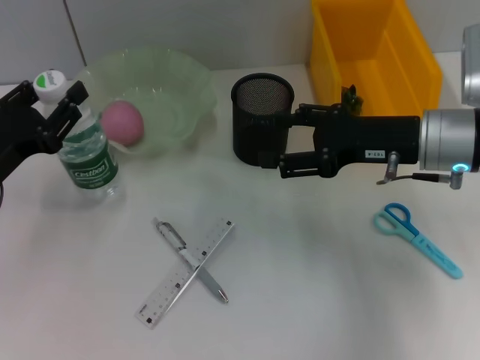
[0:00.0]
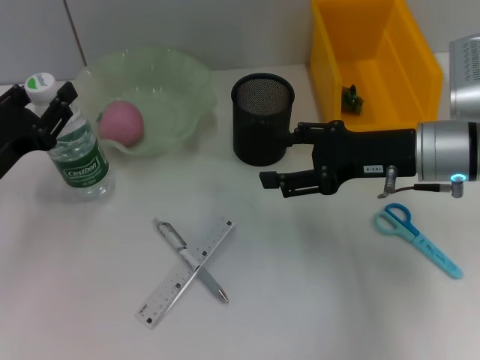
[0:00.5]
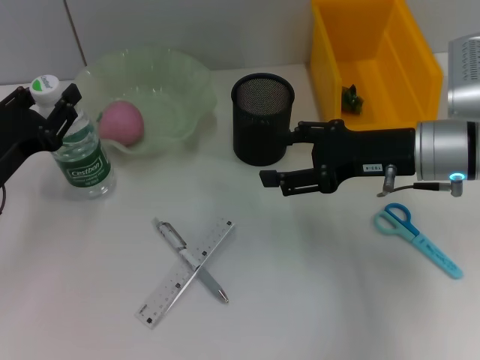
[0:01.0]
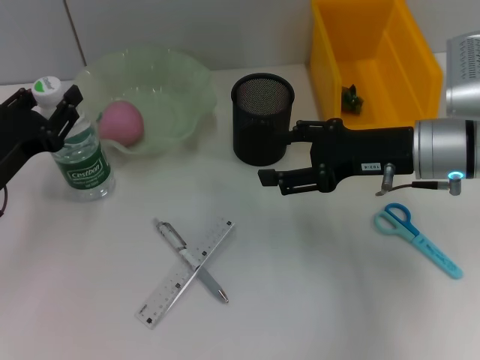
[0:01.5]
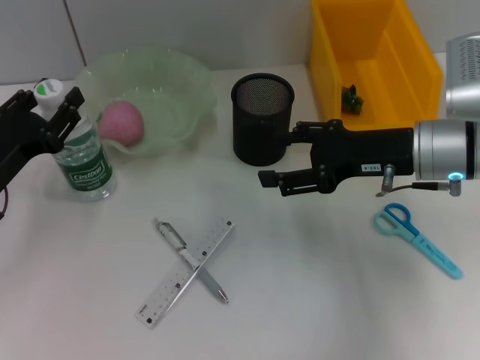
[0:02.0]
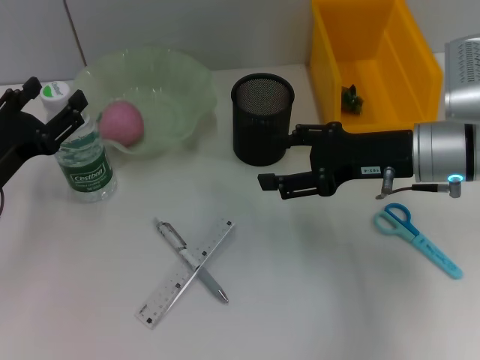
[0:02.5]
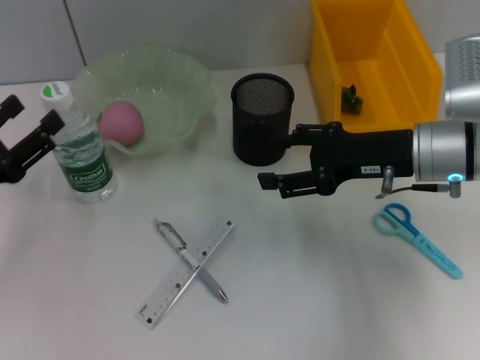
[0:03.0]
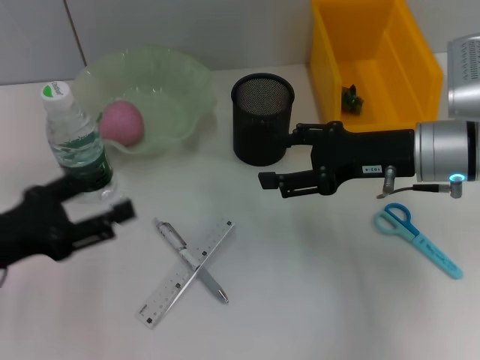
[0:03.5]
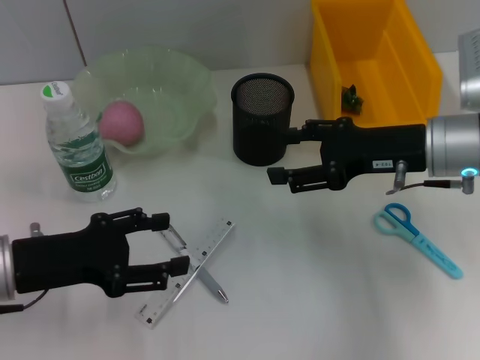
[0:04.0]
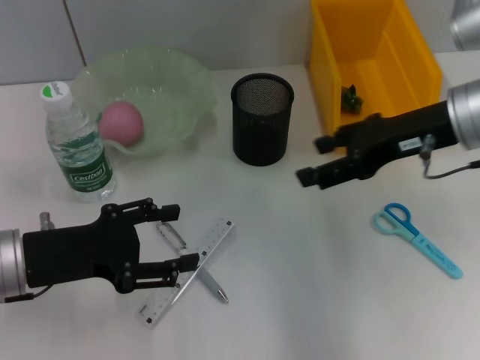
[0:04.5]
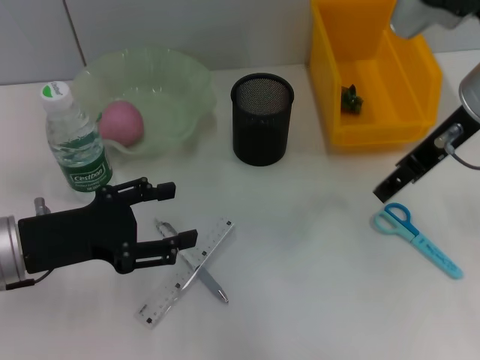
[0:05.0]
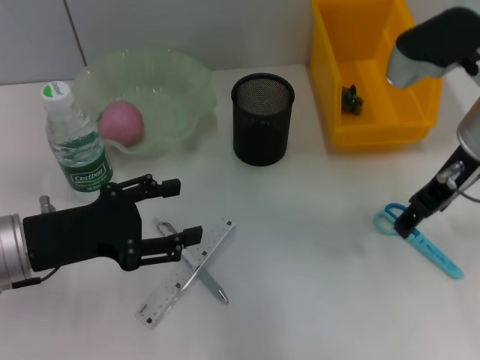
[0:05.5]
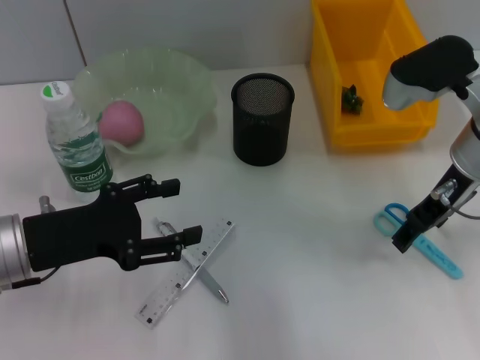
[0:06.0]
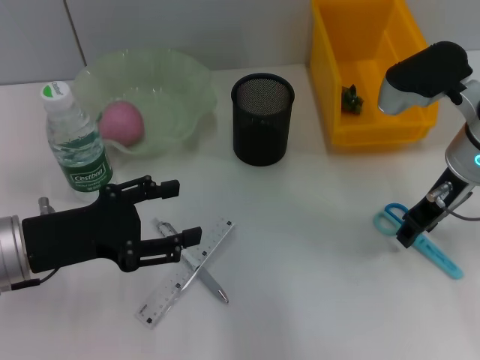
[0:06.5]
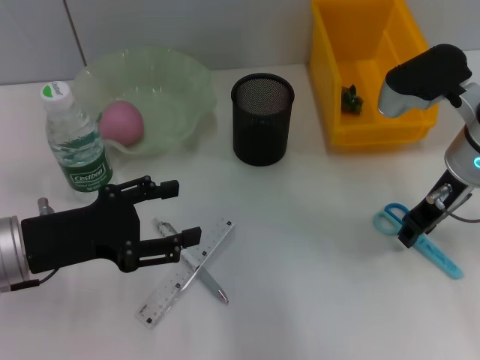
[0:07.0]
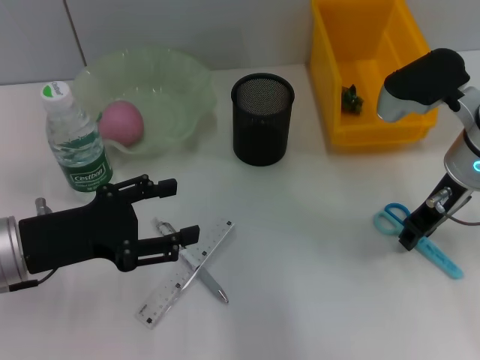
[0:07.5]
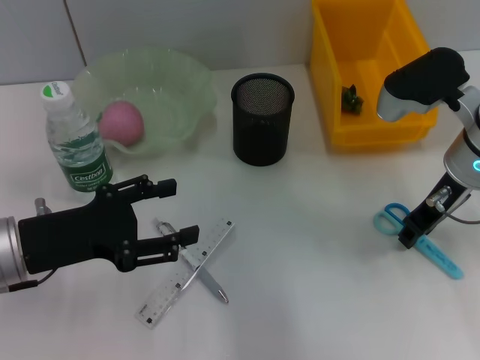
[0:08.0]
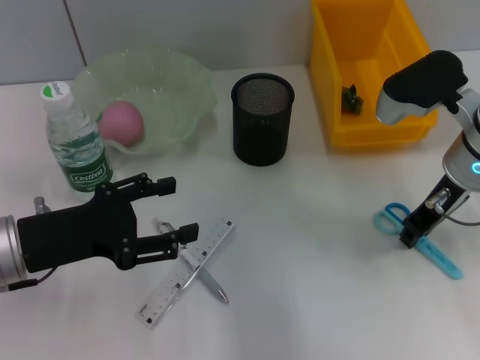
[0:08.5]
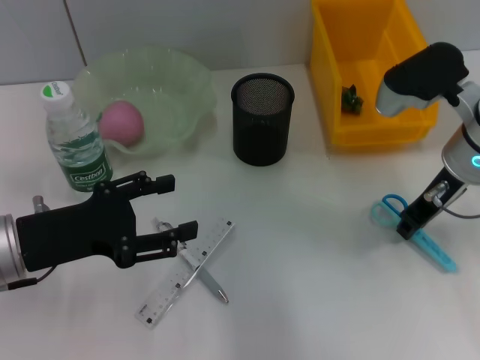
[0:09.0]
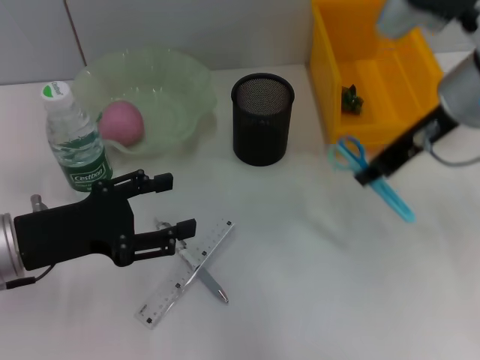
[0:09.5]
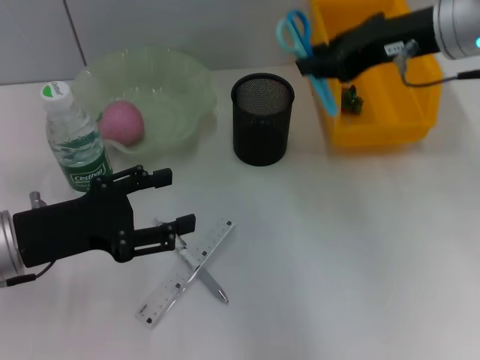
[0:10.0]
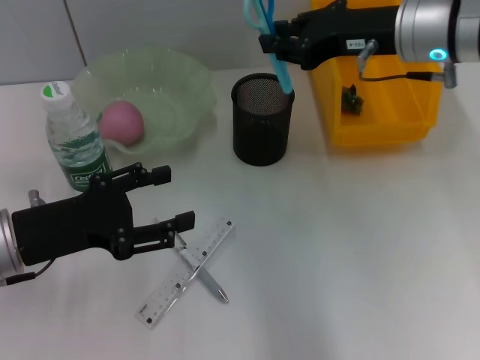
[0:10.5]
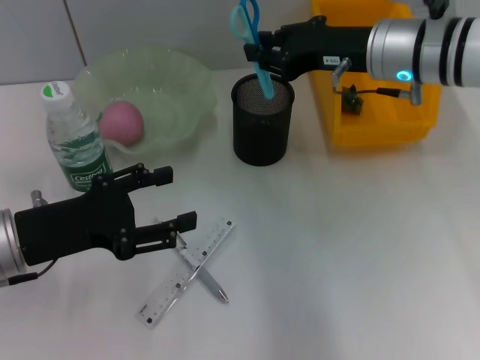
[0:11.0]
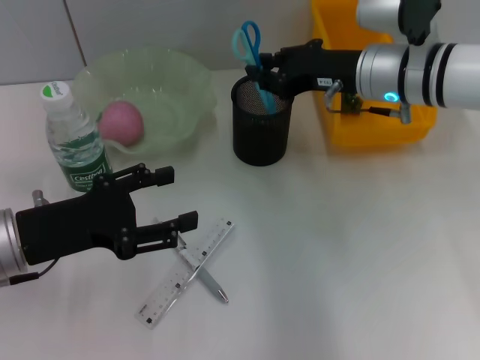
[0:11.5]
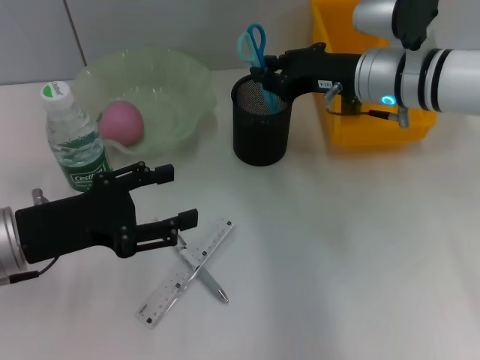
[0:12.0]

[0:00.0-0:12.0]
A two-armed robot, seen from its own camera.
Step, 0:00.0 to 0:03.0: Place the water bottle on the table with the left hand.
Step, 0:03.5 to 0:08.5: Grab the blue scissors with the right hand.
0:00.0 to 0:02.0: The grippers make only small movements.
0:02.0 to 0:04.0: The left gripper moves approximately 5 cm, and opens.
0:04.0 to 0:06.0: The right gripper moves some 10 cm upward and comes back.
0:06.0 to 0:08.0: The right gripper closes.
0:08.0 to 0:10.0: The right gripper shifts approximately 10 cm upward.
0:10.0 to 0:12.0: The right gripper goes about 10 cm downward.

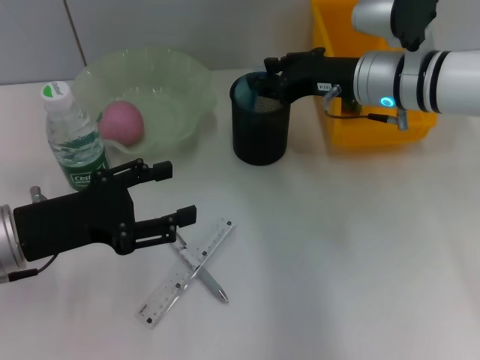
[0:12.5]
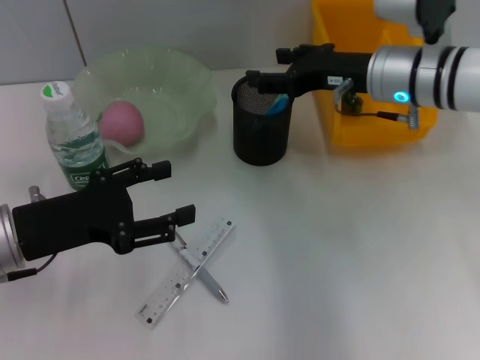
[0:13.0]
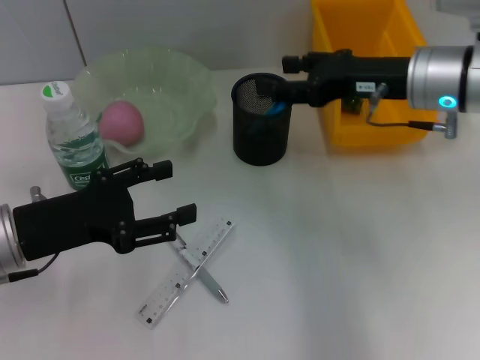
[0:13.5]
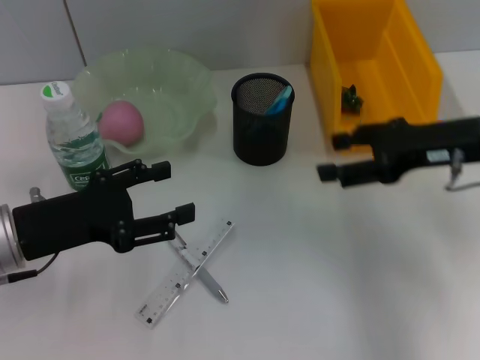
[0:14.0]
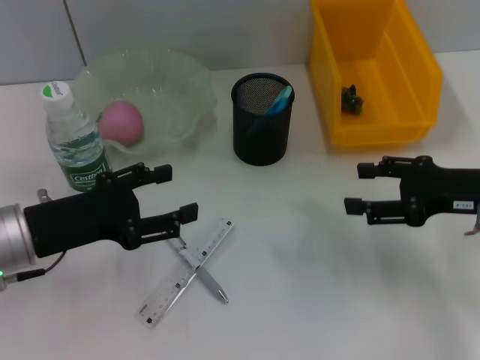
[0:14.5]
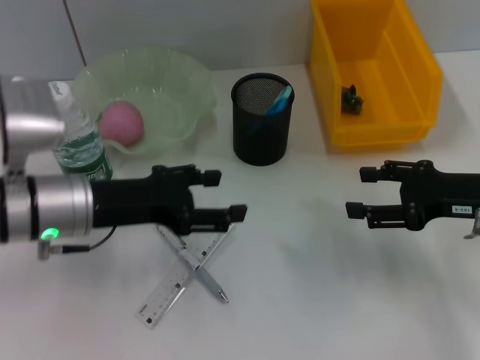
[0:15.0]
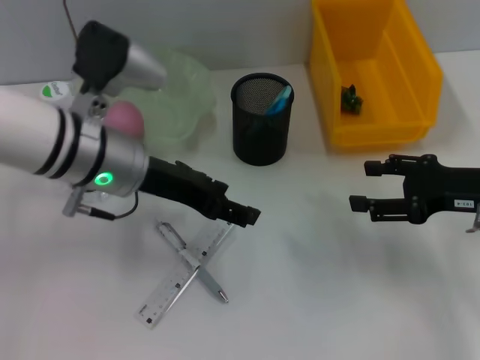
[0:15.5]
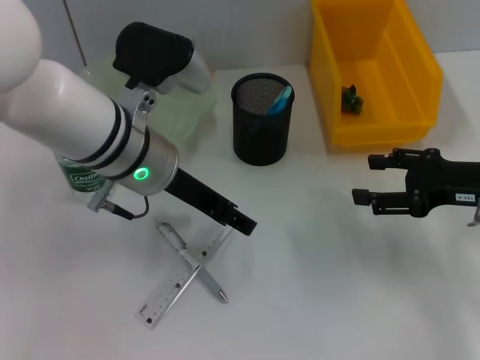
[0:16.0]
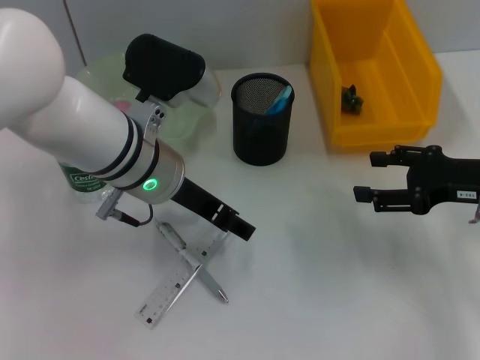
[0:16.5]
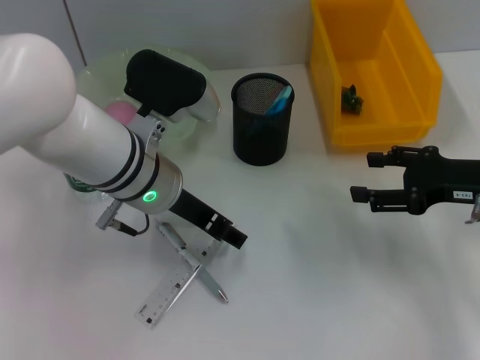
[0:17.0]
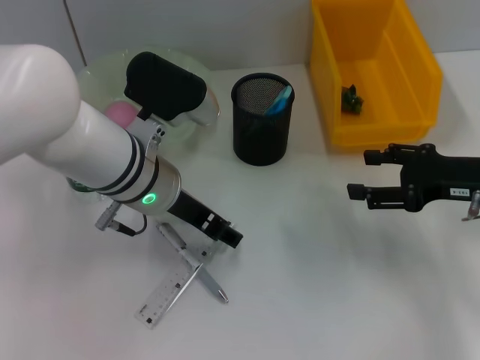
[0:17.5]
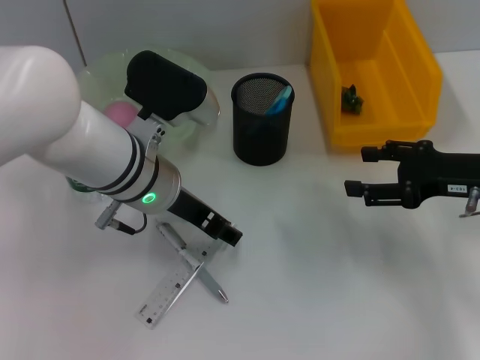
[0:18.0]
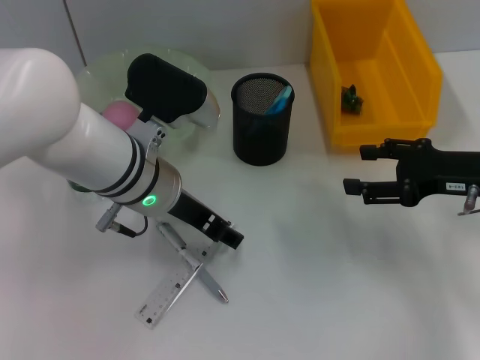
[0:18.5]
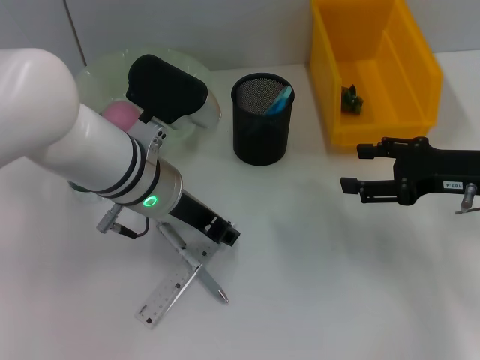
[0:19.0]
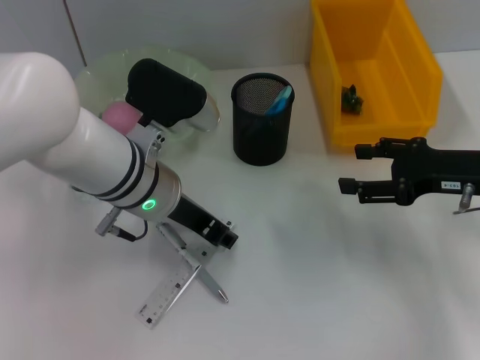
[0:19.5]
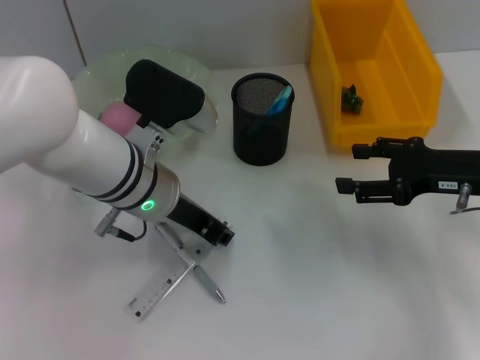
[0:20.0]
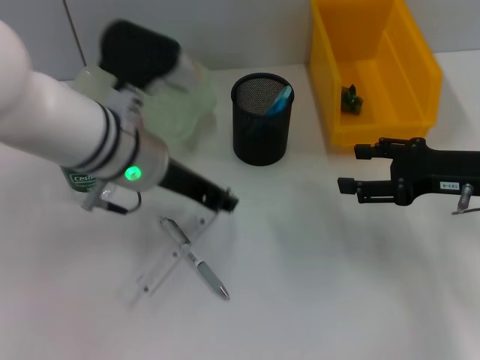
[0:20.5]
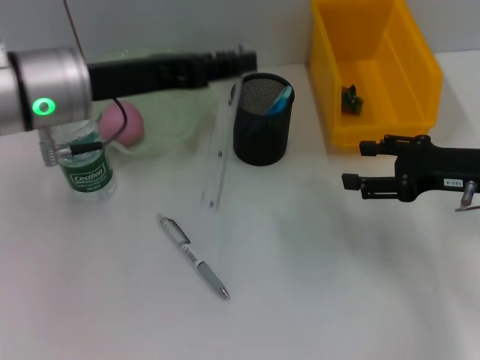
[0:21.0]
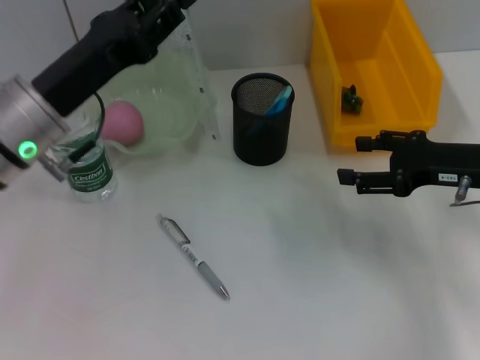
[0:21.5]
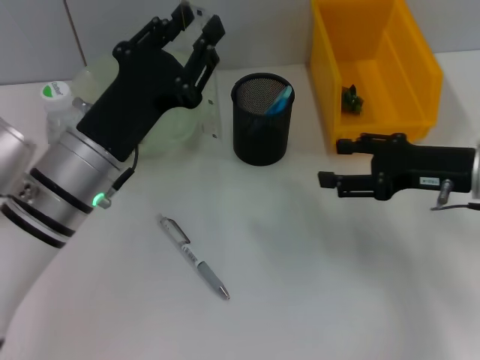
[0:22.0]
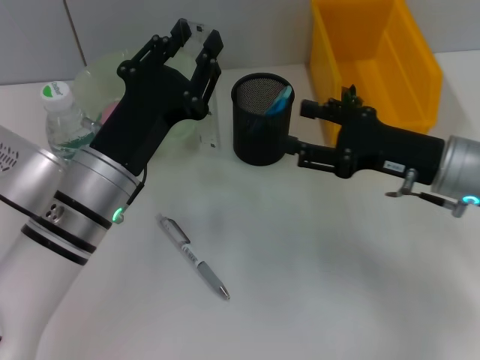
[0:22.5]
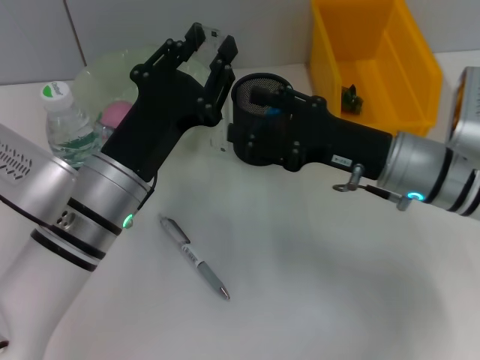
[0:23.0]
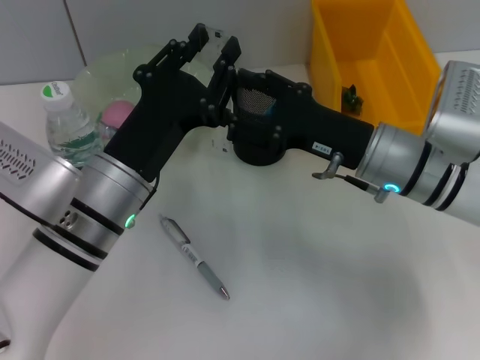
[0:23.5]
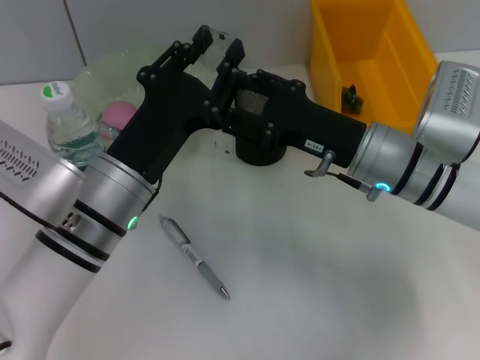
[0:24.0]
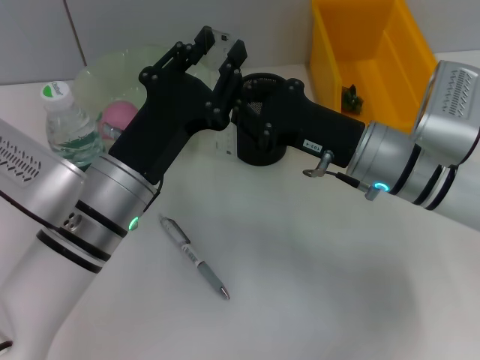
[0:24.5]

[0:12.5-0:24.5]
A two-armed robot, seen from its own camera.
Step, 0:13.5 to 0:20.0: Grab the ruler with the left hand.
0:12.5 to 0:14.5: The right gripper shifts some 15 cm to the right and backward, and opens.
0:14.5 to 0:16.5: The left gripper heads to the right and forward, covering roughly 15 cm.
0:16.5 to 0:18.5: The grippers move only a little.
0:18.5 to 0:20.5: The left gripper closes up.
0:20.5 to 0:22.5: The right gripper moves to the left, about 5 cm; the left gripper travels backward and downward by approximately 10 cm.
0:22.5 to 0:24.5: The right gripper heads to the left, covering roughly 10 cm, and closes its fingers.

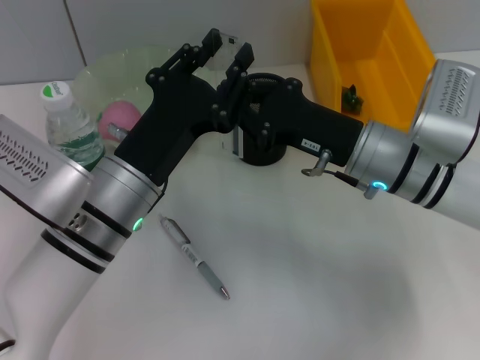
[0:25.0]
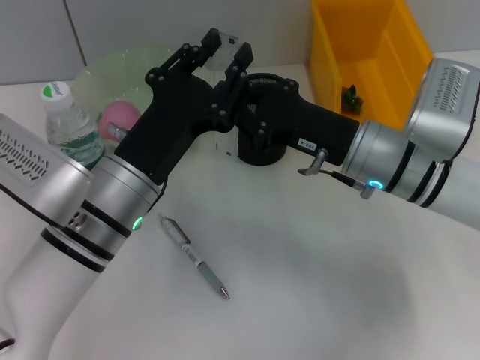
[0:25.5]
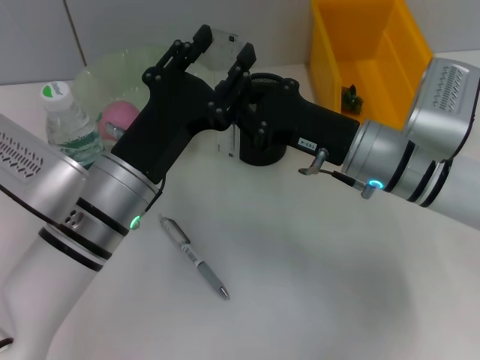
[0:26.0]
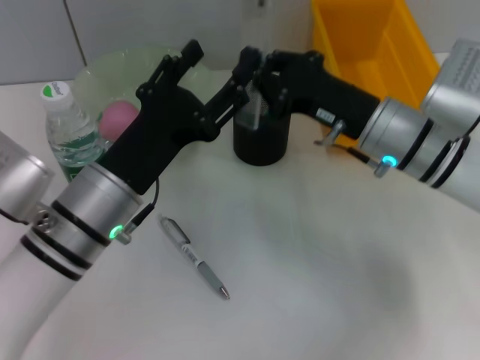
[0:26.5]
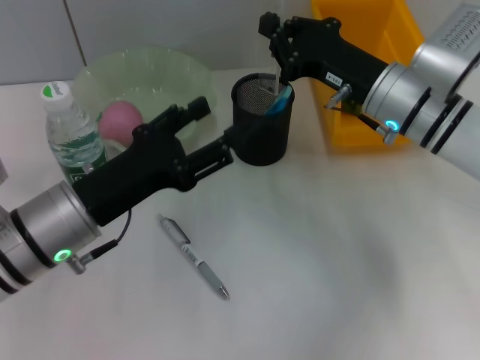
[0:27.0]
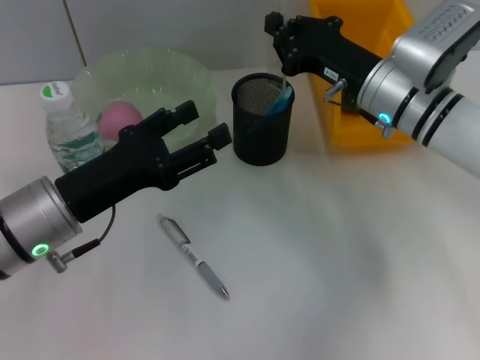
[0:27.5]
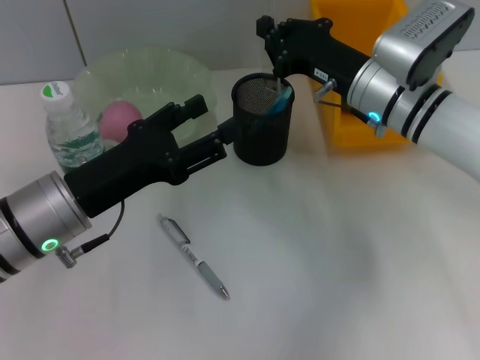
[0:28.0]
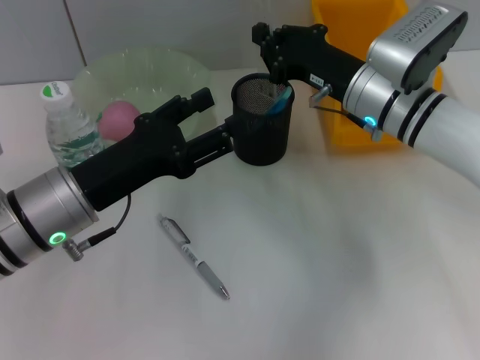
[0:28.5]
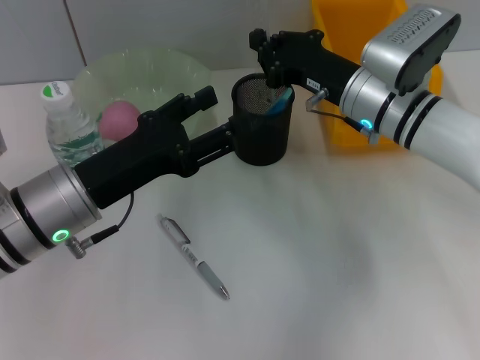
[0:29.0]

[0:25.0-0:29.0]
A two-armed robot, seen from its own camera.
0:25.0 to 0:27.0: The right gripper ends up roughly 5 cm from where it was; the left gripper heads to the left, covering approximately 5 cm, and opens up.
0:27.0 to 0:29.0: There are only small adjustments of the grippers.
